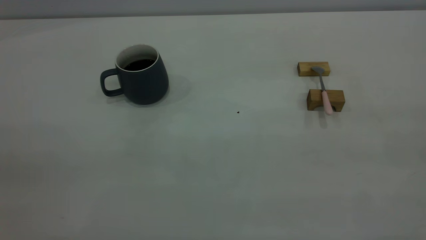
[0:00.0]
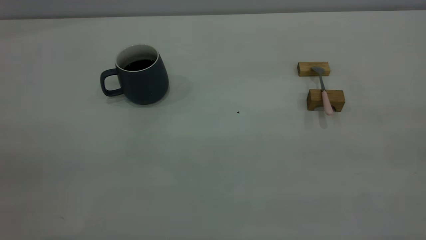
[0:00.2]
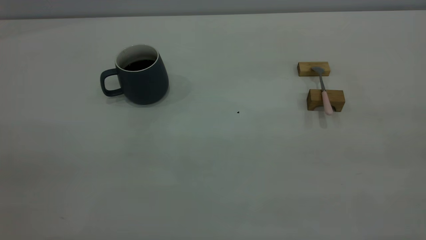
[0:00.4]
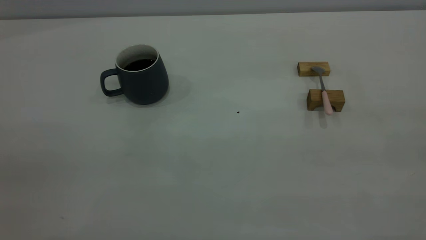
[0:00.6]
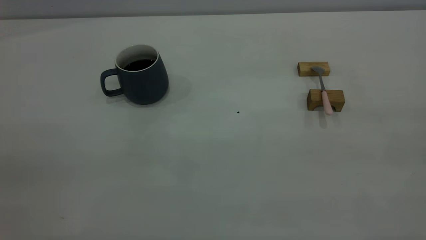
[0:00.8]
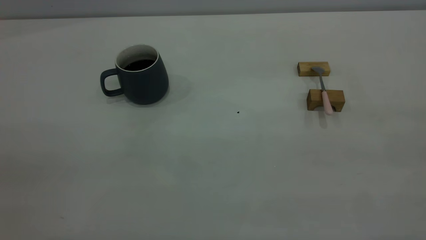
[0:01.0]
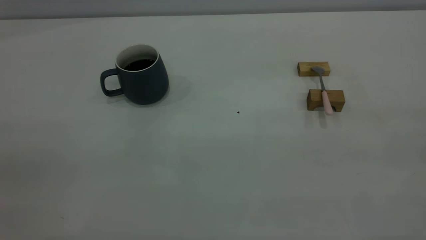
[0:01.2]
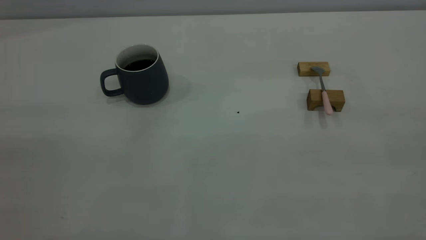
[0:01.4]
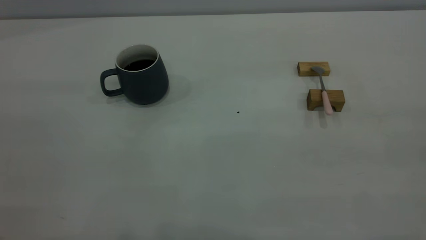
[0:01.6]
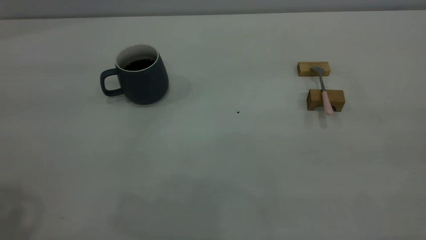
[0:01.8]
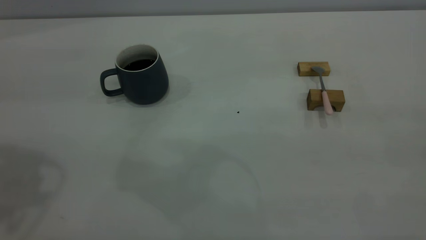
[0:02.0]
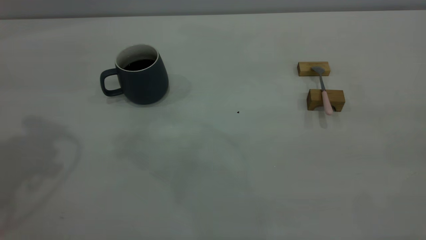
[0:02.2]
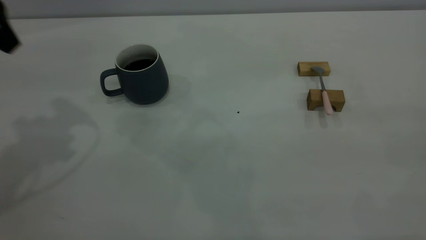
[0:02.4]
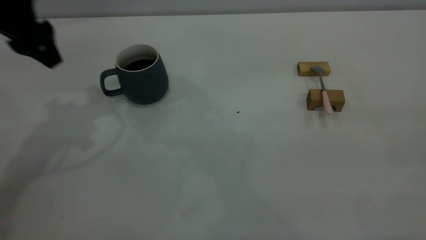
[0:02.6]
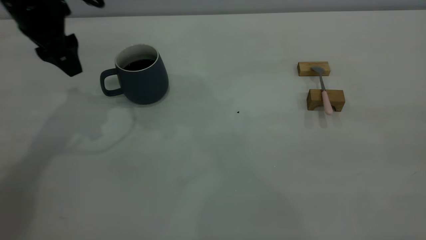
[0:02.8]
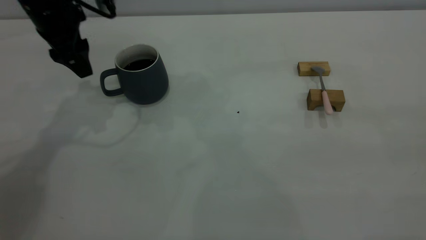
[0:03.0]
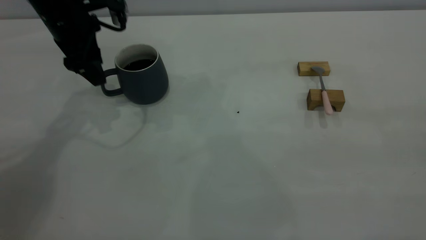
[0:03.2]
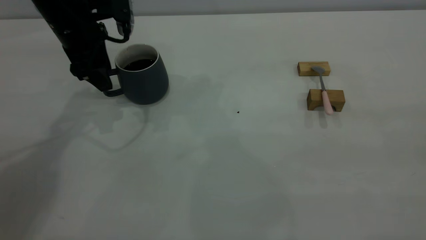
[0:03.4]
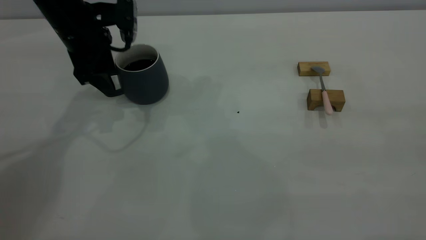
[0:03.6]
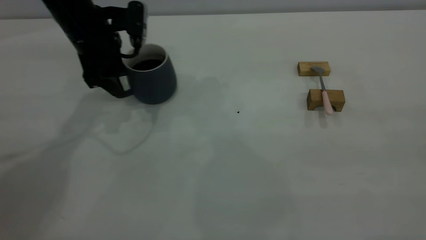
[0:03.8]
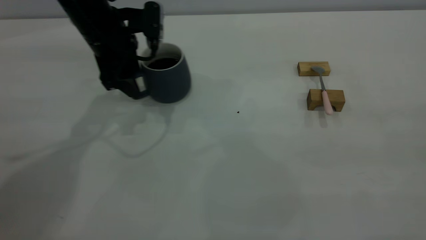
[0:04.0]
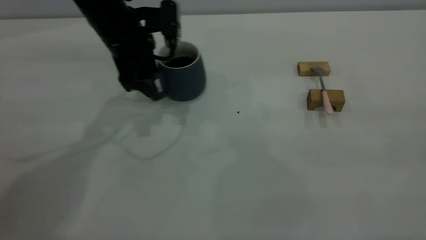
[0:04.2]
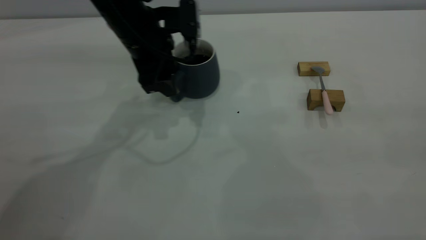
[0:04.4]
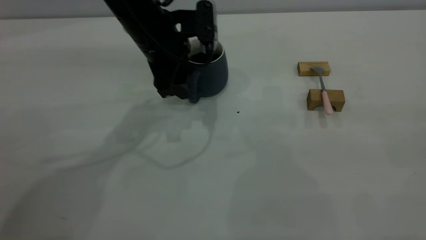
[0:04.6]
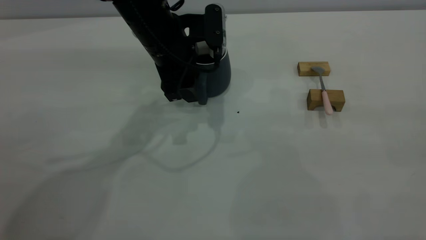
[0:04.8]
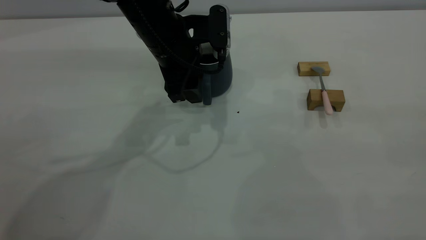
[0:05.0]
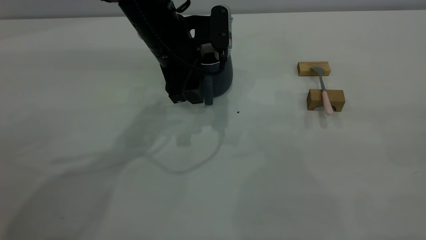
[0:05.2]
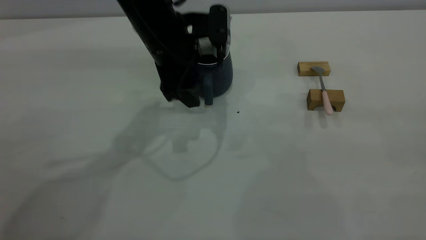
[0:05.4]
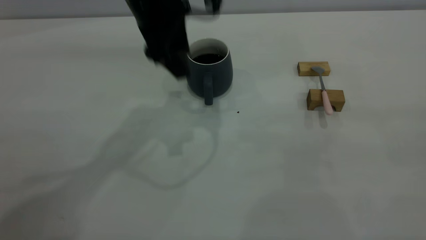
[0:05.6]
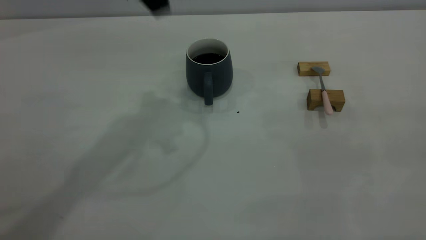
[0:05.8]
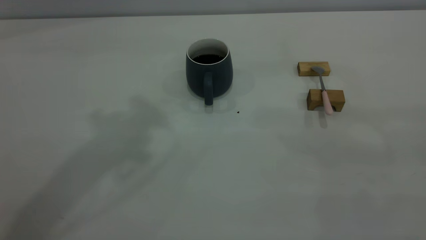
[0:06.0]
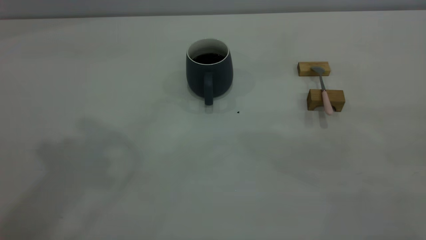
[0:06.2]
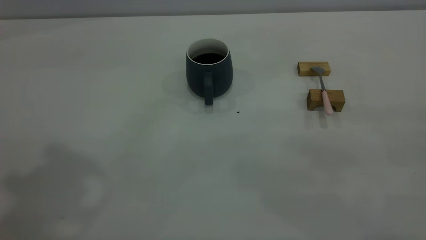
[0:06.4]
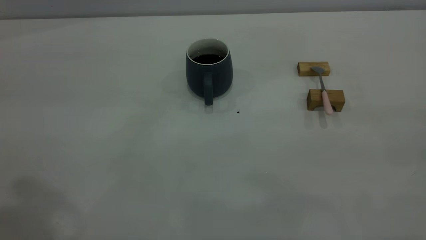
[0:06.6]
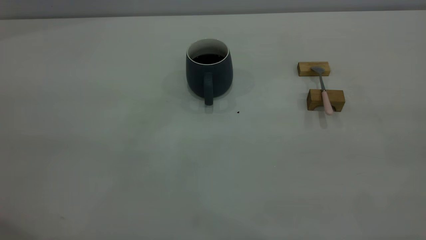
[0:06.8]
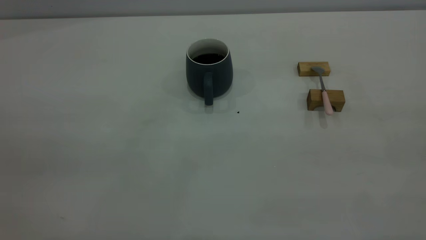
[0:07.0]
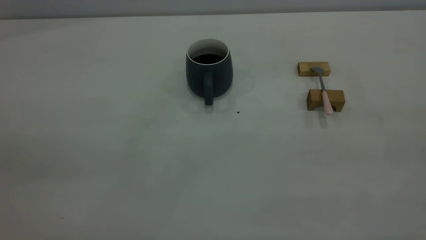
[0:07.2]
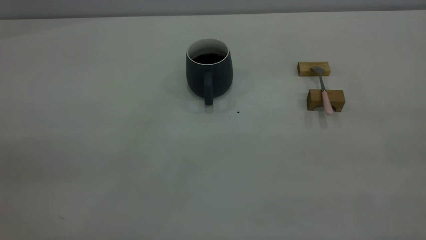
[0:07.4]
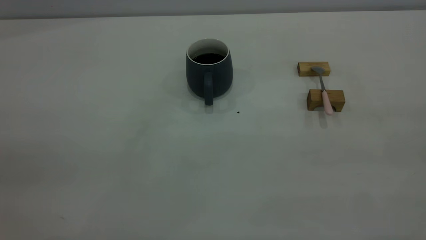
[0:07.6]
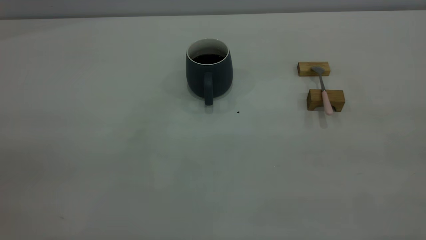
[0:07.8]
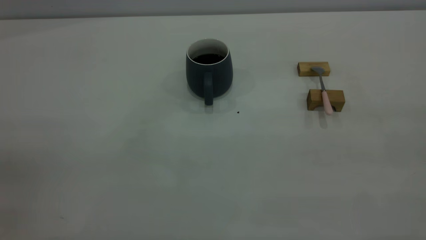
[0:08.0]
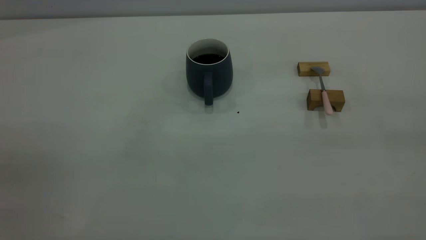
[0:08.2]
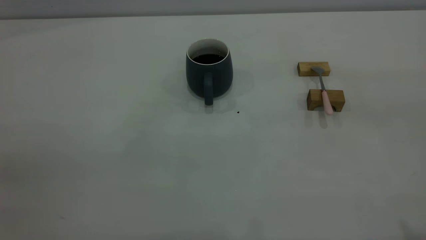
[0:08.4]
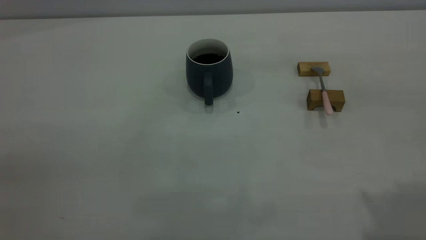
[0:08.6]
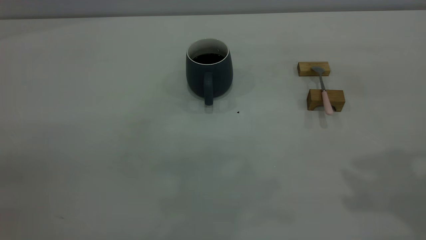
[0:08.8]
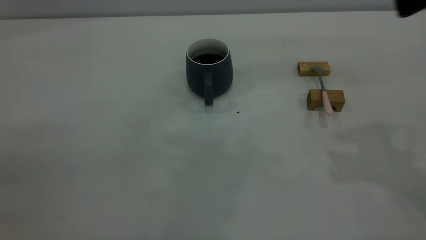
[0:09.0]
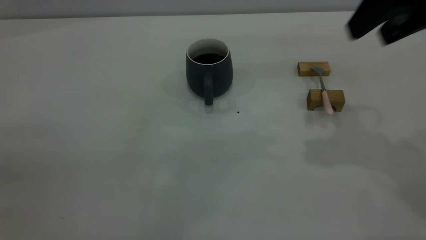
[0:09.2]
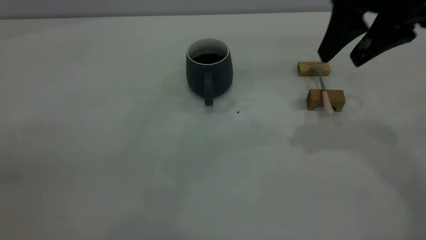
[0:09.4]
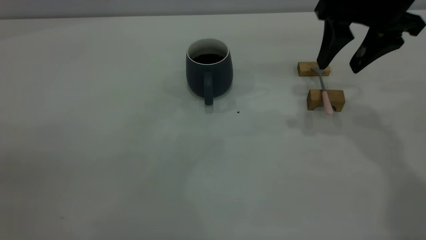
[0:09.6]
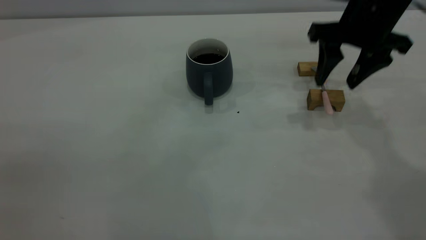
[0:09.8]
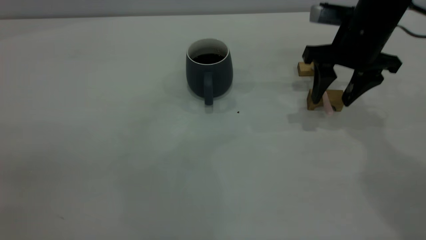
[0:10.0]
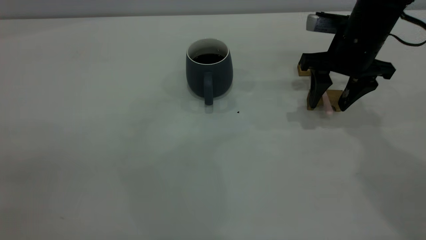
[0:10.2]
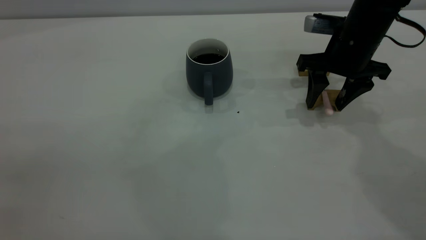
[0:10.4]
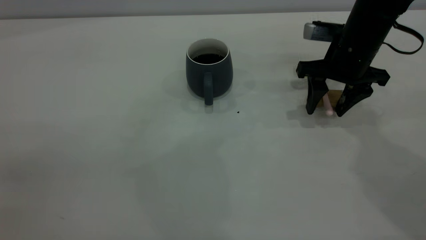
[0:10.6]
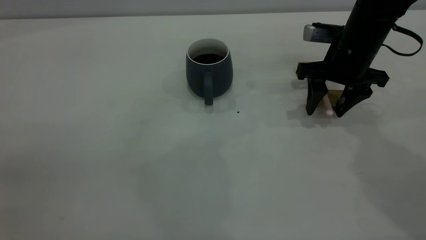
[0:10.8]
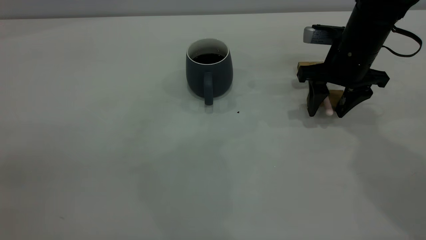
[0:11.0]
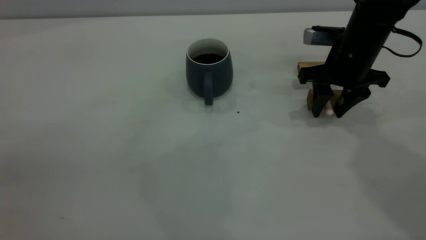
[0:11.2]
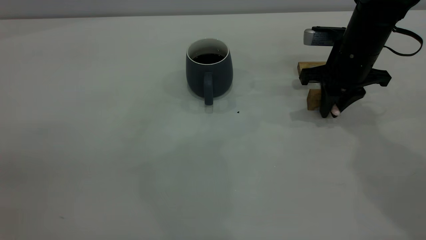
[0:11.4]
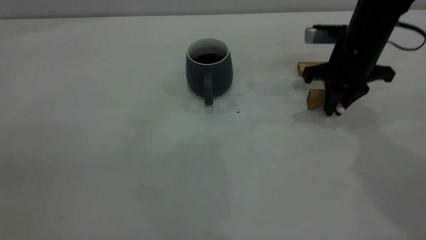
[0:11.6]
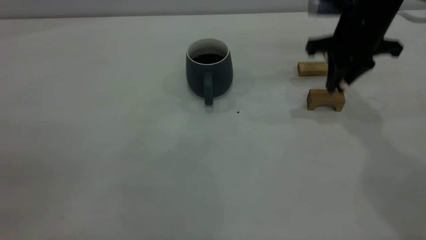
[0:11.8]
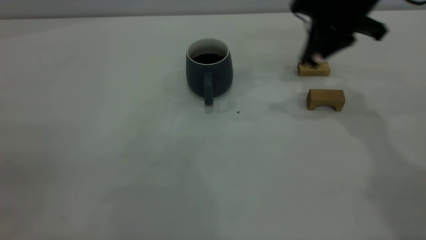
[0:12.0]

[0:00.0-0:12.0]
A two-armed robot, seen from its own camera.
Step, 0:00.0 to 0:05.6: Move the cup with coffee to the center of view.
Step, 0:05.8 to 0:11.6: Pick up the spoon.
0:01.6 to 0:03.0: The left gripper goes some 35 cm forward and downward.
0:03.0 to 0:04.4: The left gripper is displaced to the right by approximately 10 cm.
0:04.4 to 0:06.0: The left gripper goes roughly 30 cm upward.
0:09.0 to 0:10.4: The right gripper is displaced downward and forward by roughly 25 cm.
0:10.4 to 0:12.0: The right gripper heads upward, covering about 10 cm, and closes its fingers.

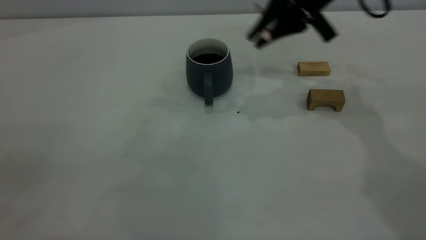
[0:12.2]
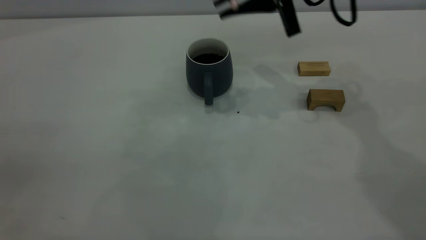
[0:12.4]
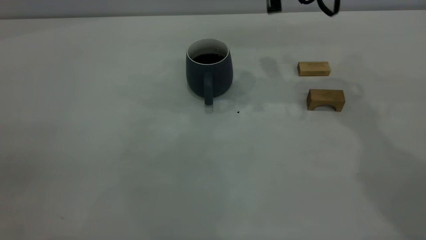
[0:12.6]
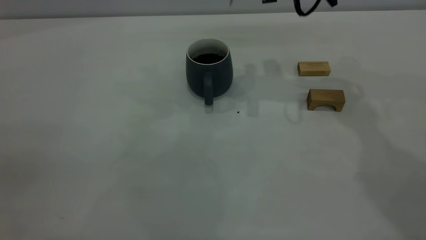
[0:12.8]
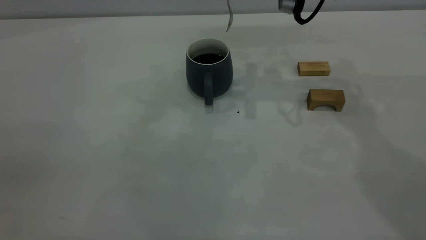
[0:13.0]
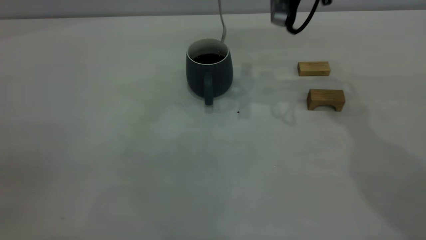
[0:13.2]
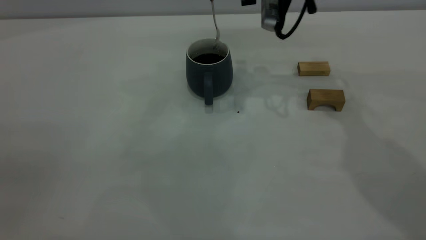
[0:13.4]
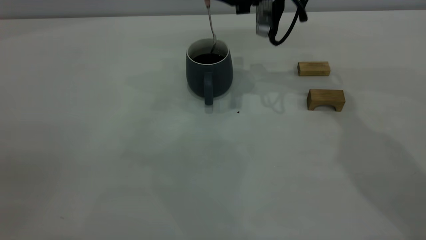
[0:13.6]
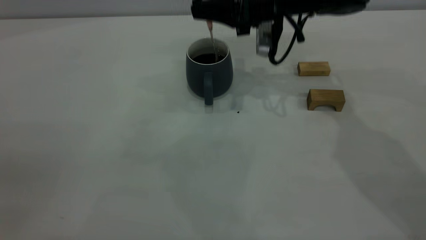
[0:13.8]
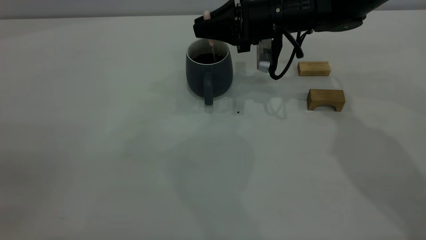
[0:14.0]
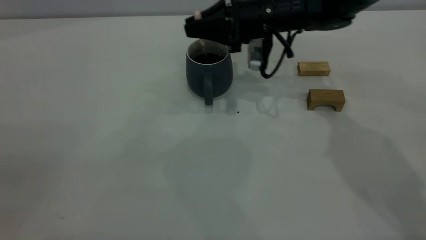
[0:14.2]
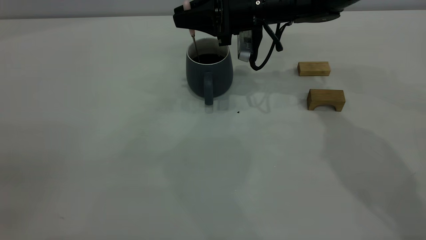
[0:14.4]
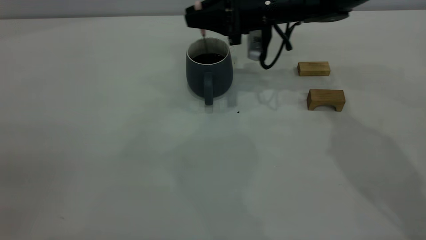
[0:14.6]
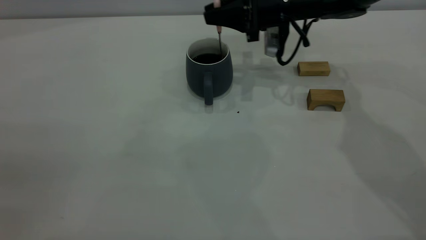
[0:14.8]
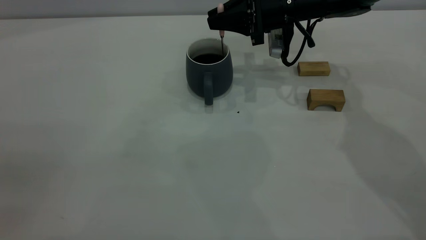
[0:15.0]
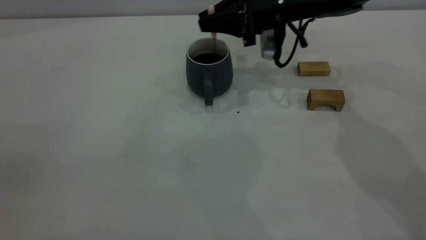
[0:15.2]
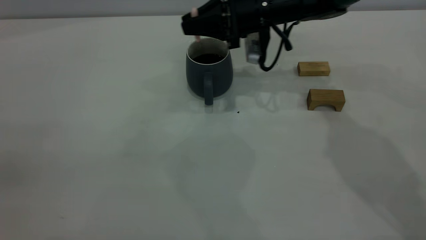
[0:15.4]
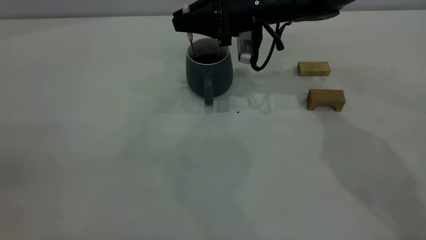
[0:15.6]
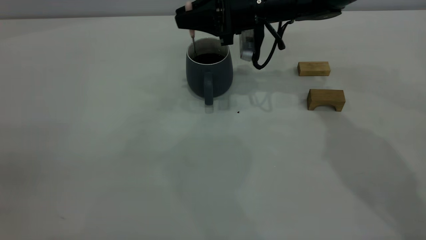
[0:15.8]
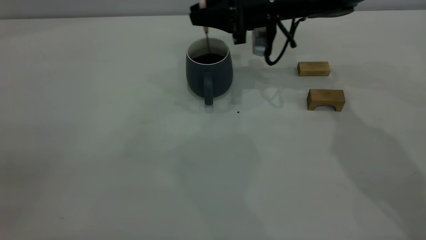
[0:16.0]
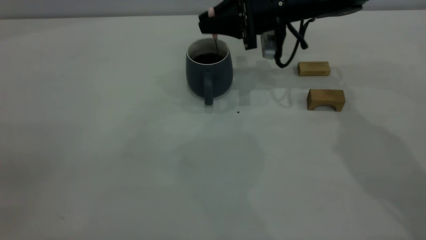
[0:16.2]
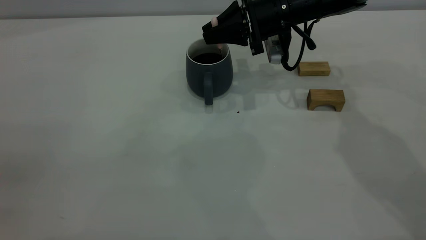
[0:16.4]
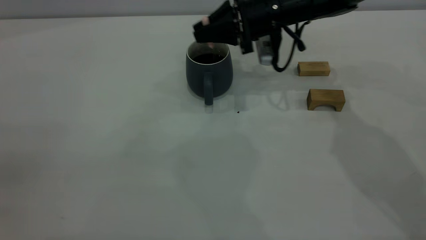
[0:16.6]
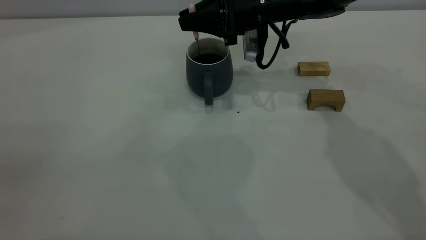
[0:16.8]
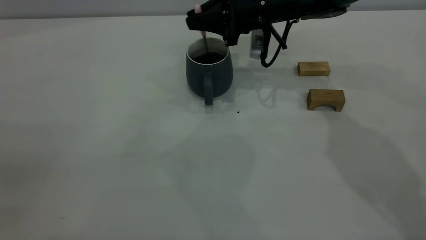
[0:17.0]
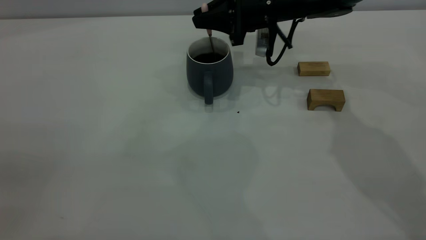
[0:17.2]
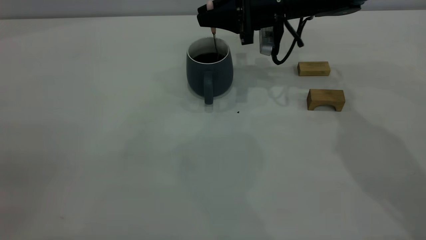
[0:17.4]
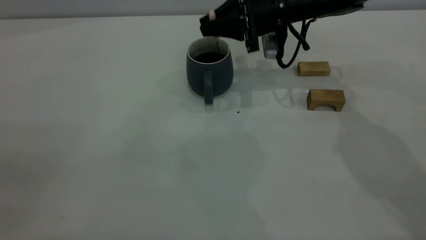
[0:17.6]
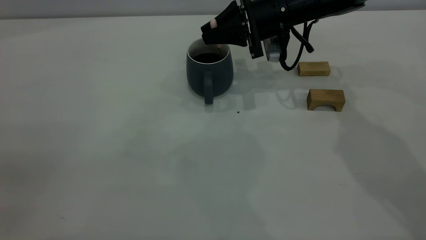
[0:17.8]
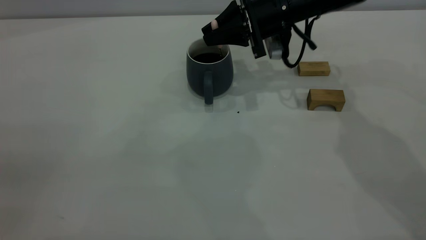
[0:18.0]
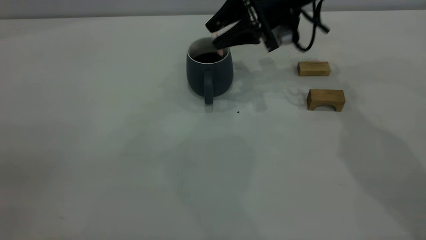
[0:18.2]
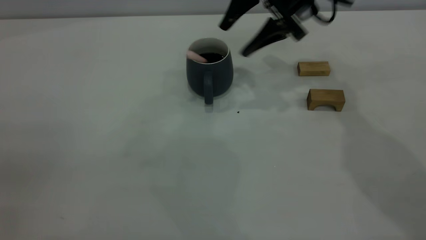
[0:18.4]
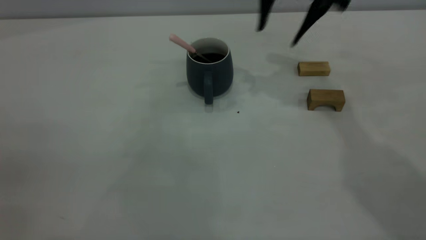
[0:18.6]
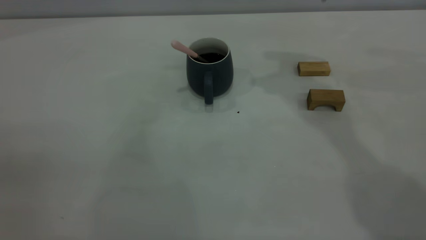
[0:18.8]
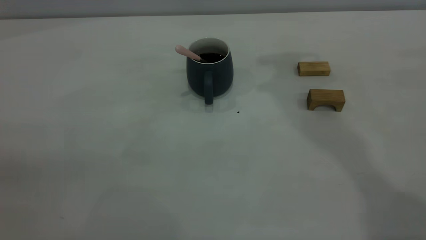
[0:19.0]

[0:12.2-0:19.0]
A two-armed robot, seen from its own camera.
Step, 0:12.2 to 0:18.2: Stir the coffee in the cup.
0:12.2 to 0:13.6: The right gripper goes some 5 cm forward.
0:13.6 to 0:15.0: The right gripper shifts some 5 cm downward.
0:15.0 to 0:17.6: The grippers stay close to where they were, moving slightly.
0:17.6 to 0:19.0: The right gripper is displaced upward by some 30 cm, and opens.
